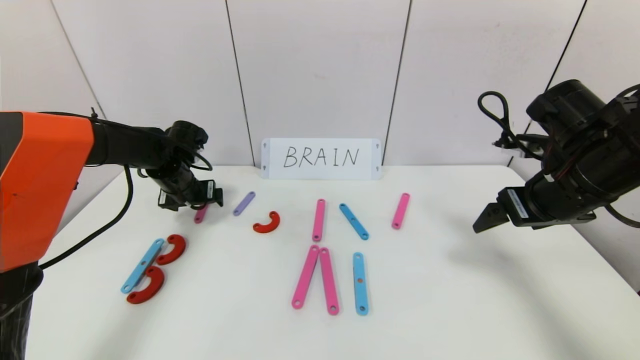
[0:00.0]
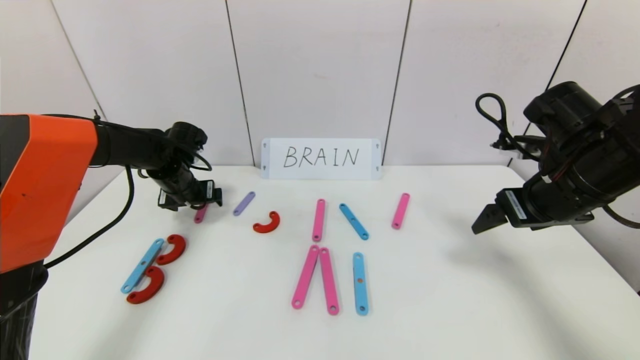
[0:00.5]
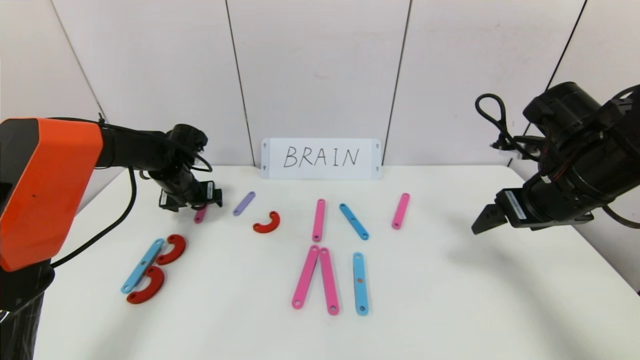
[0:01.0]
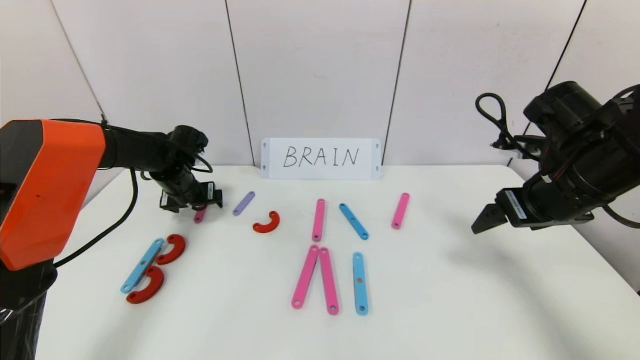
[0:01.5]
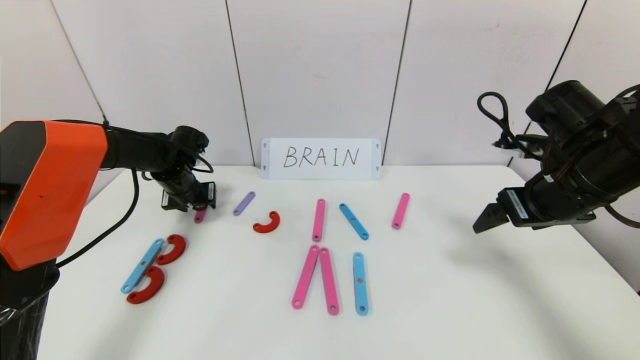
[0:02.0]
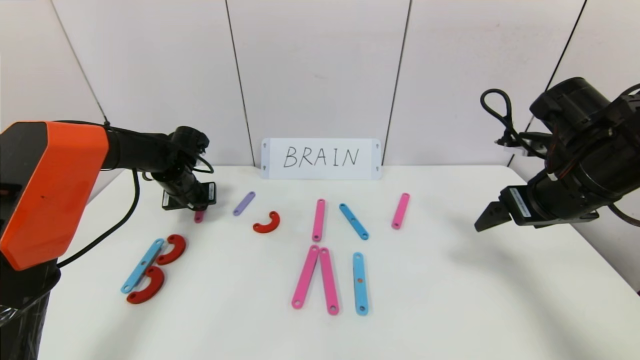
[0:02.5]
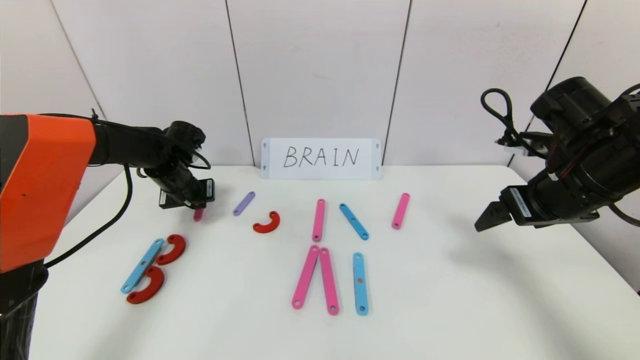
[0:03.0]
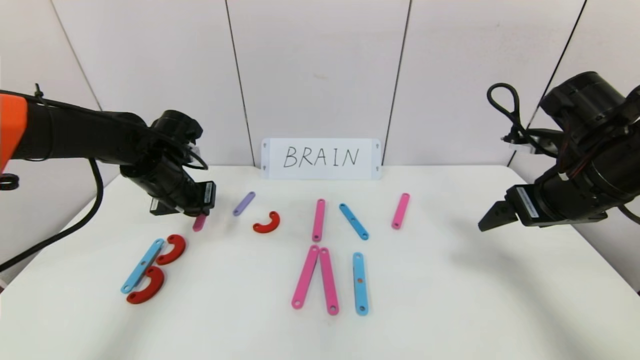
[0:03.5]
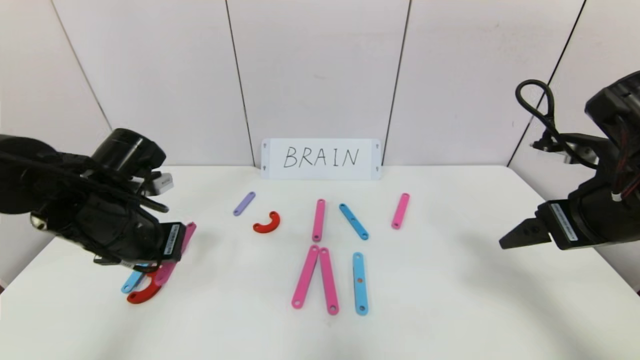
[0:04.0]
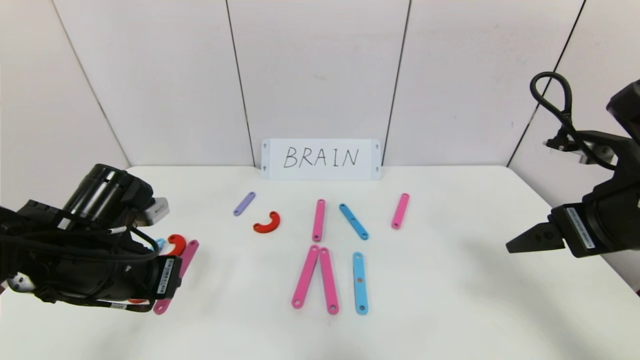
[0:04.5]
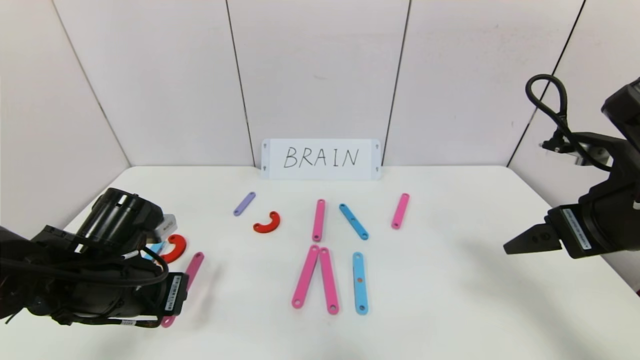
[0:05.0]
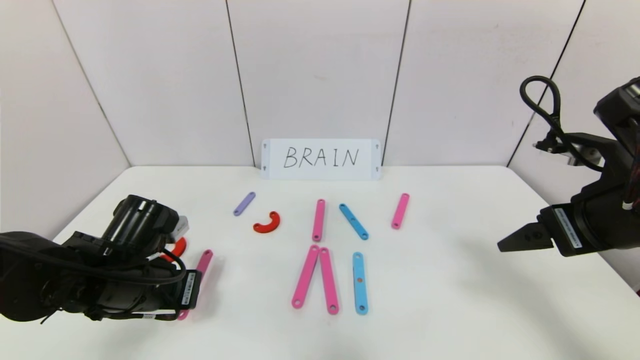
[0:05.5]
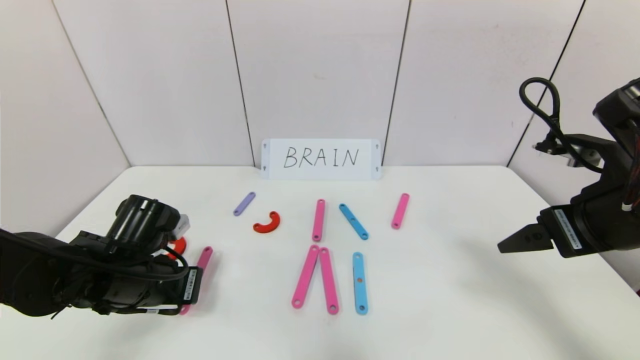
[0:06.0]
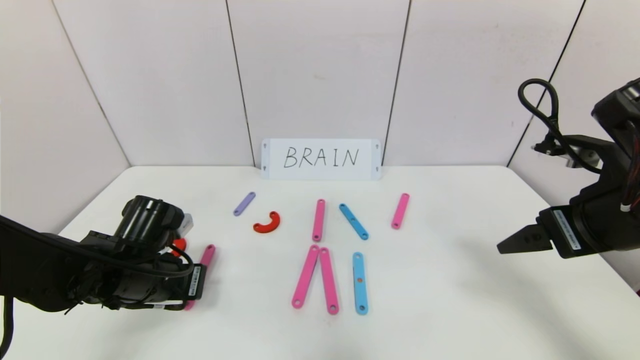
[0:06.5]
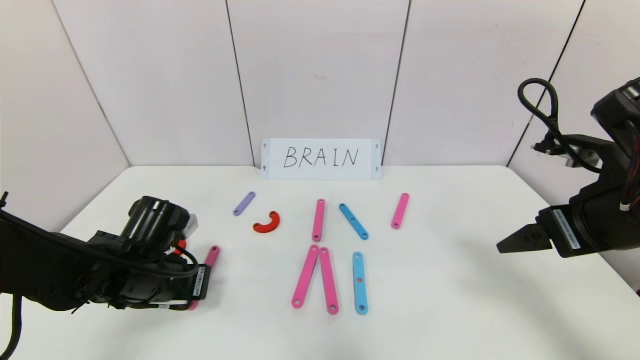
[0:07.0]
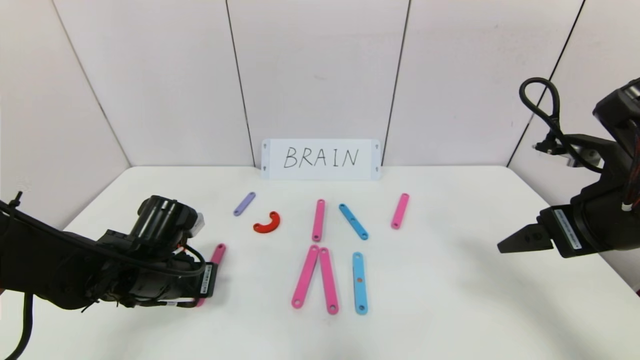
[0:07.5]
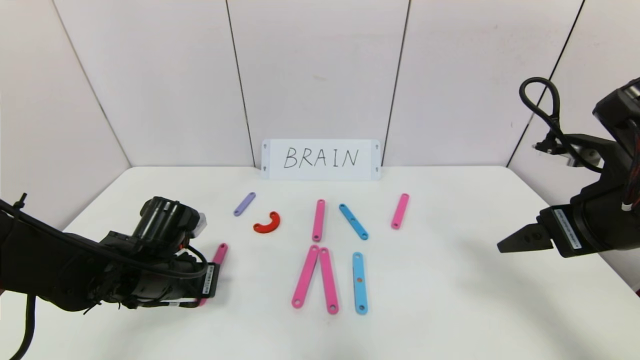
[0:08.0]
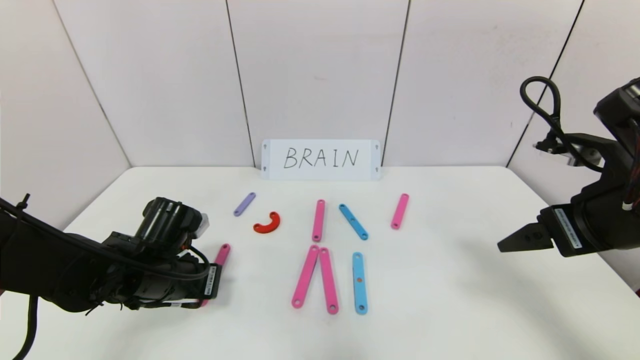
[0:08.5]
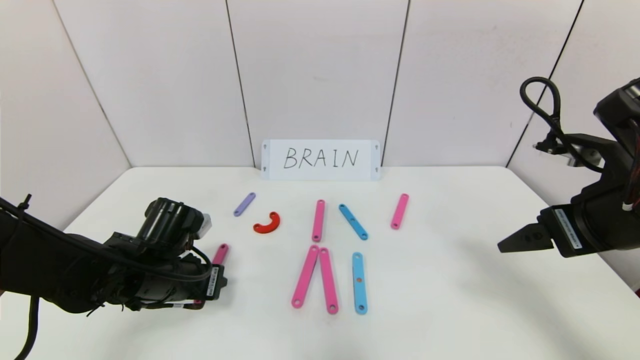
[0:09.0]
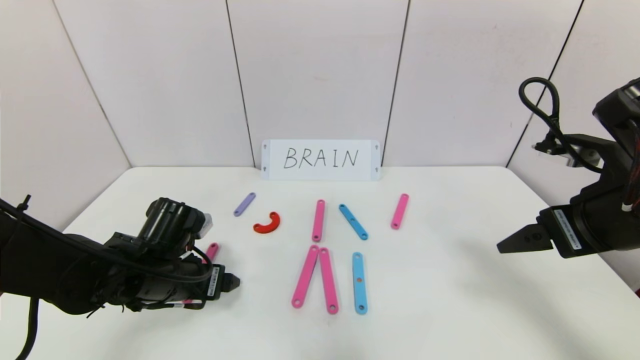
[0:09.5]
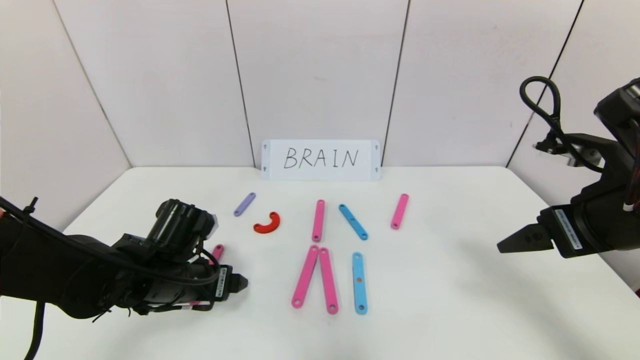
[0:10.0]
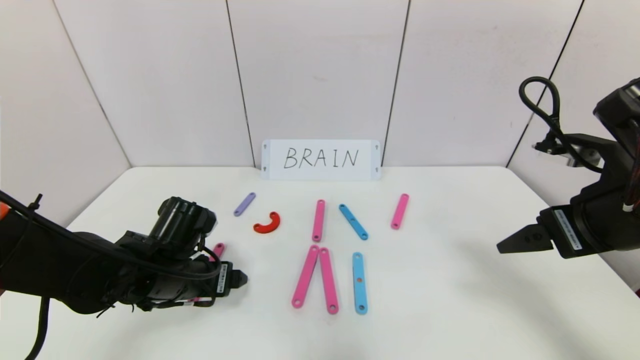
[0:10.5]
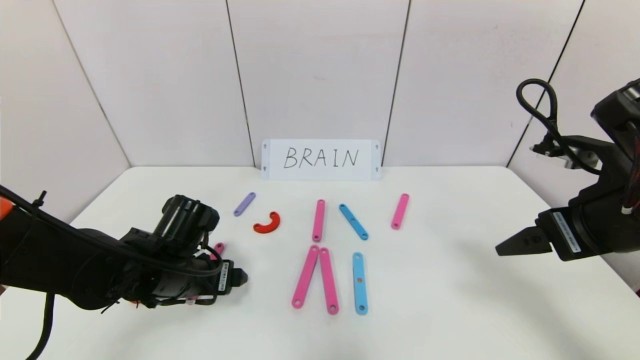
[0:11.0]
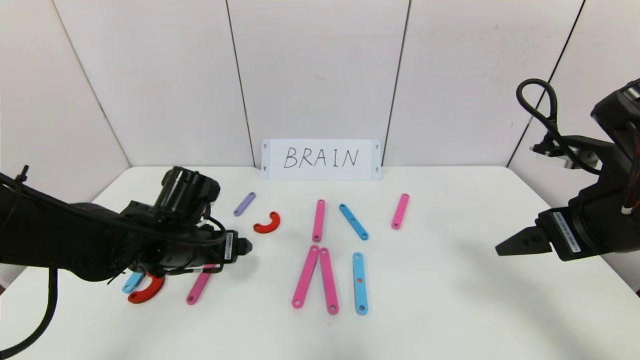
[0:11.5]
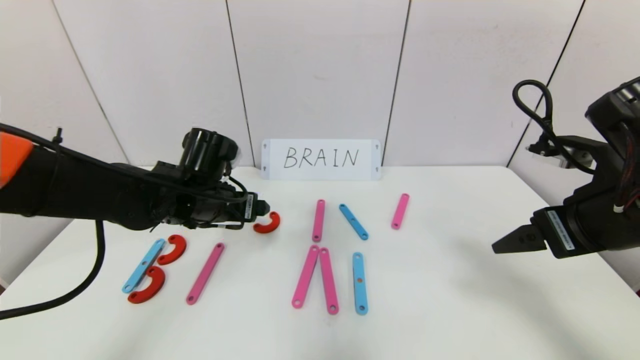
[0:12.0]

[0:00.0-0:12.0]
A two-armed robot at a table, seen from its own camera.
Task of the whole recording: rearrange the word baai as brain.
0:00.0 to 0:02.0: The left gripper closes its fingers.
0:02.0 to 0:04.0: The left gripper shifts roughly 20 cm backward, and closes, while the right gripper moves backward, about 5 cm.
0:04.0 to 0:06.0: The left gripper is displaced downward by some 10 cm.
0:06.0 to 0:08.0: The grippers make only small movements.
0:08.0 to 0:10.0: The left gripper opens.
0:10.0 to 0:12.0: The left gripper goes about 10 cm forward and upward.

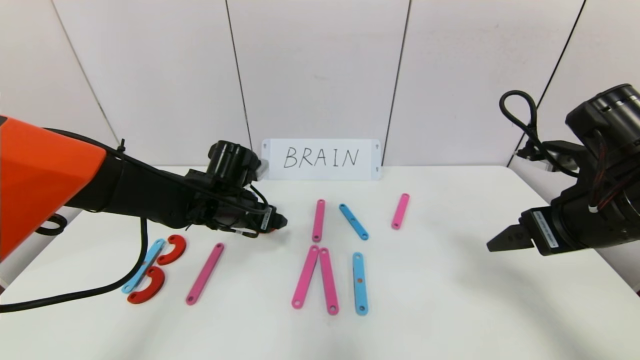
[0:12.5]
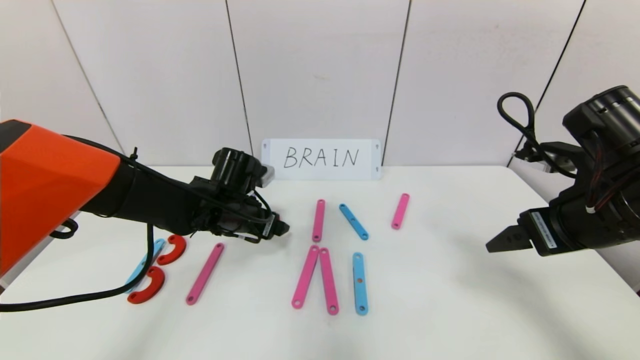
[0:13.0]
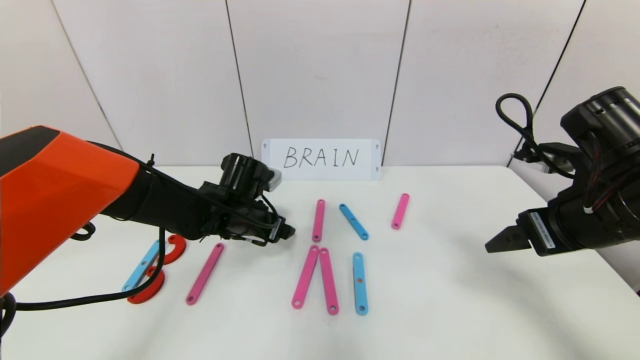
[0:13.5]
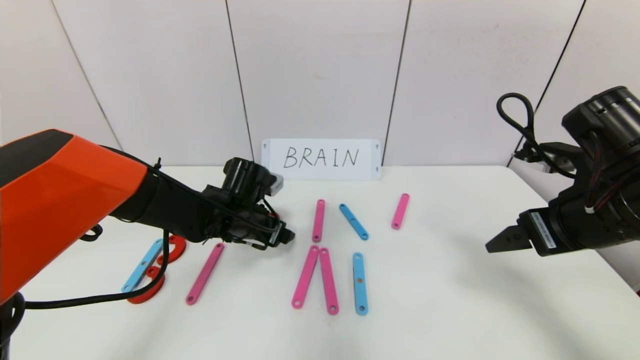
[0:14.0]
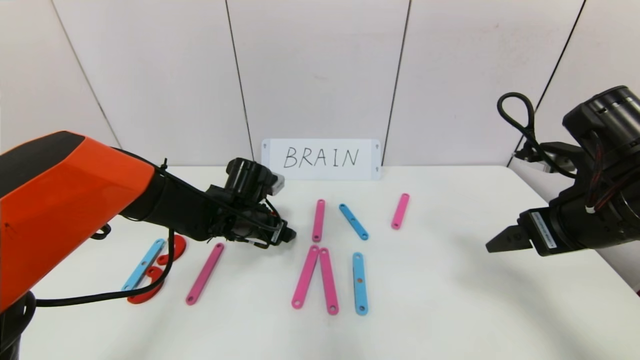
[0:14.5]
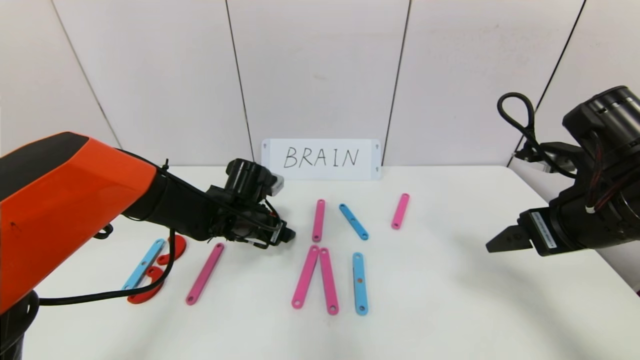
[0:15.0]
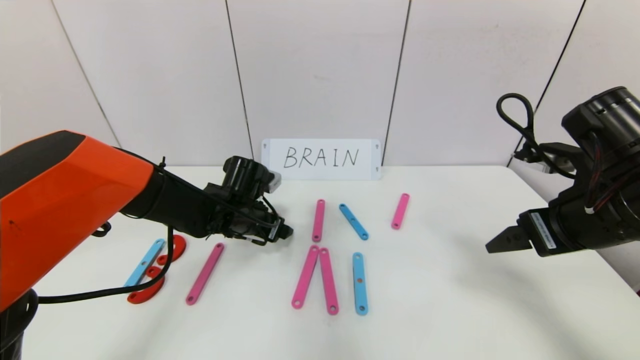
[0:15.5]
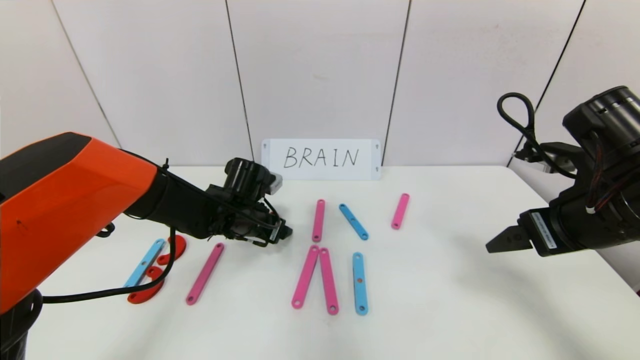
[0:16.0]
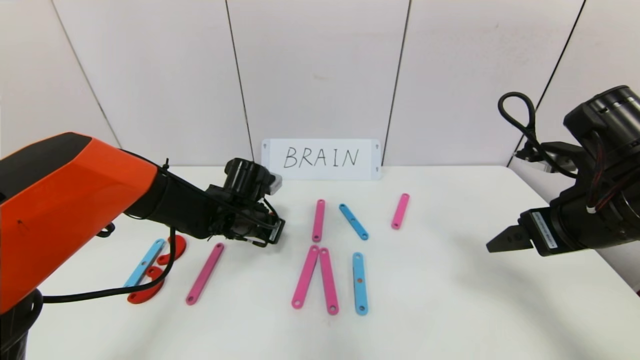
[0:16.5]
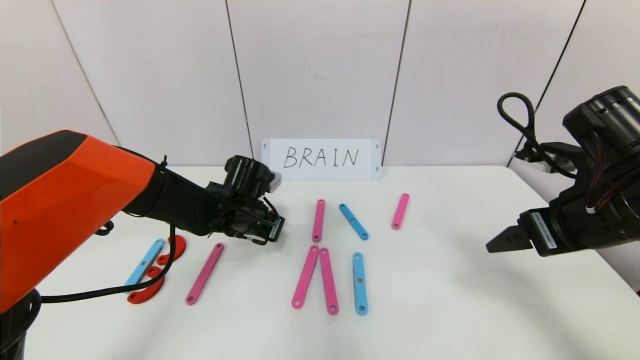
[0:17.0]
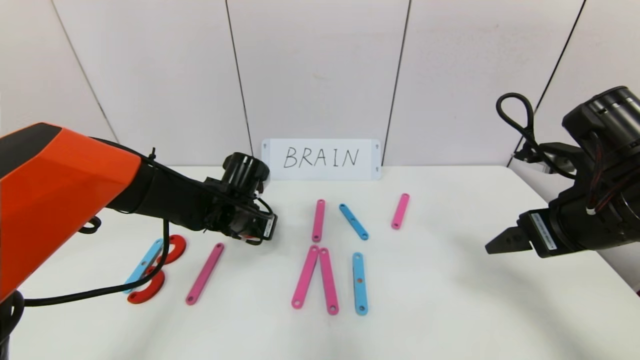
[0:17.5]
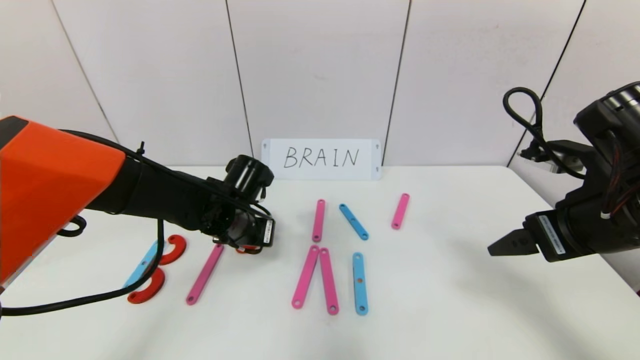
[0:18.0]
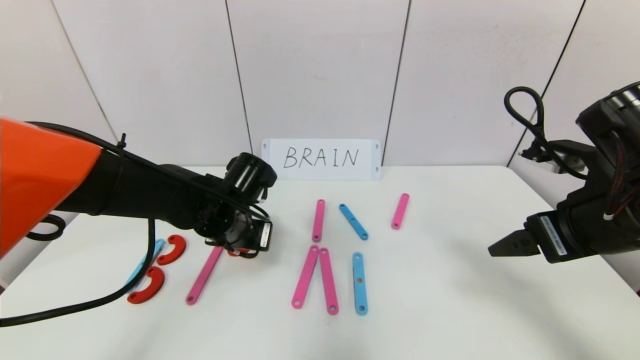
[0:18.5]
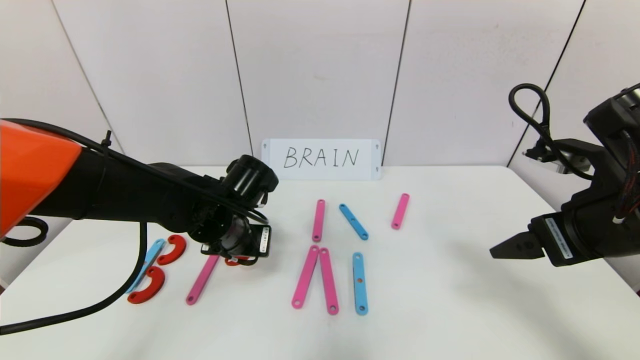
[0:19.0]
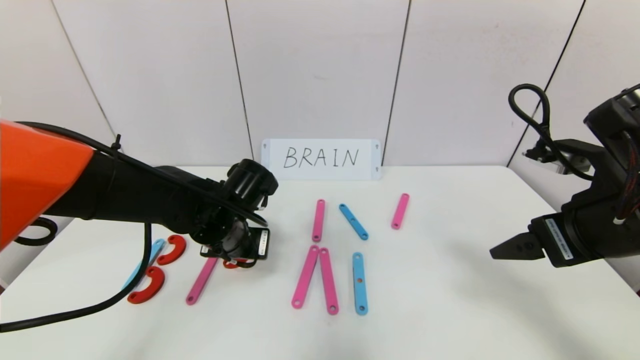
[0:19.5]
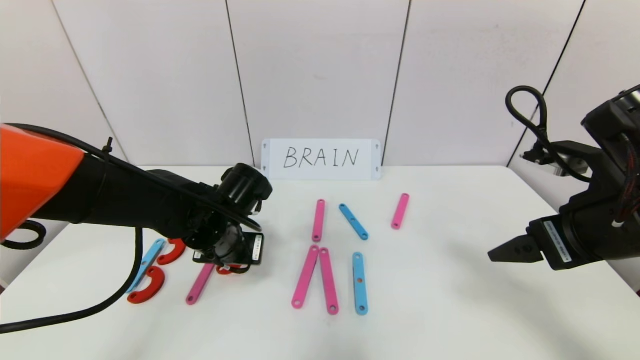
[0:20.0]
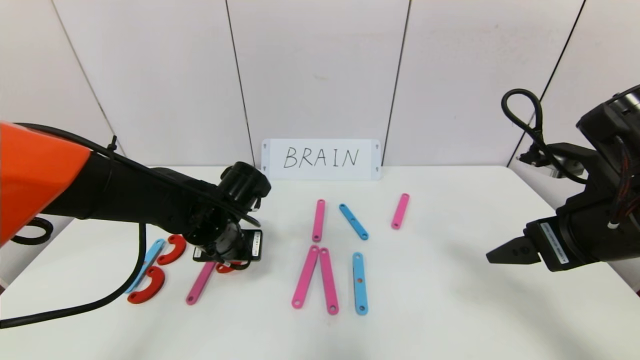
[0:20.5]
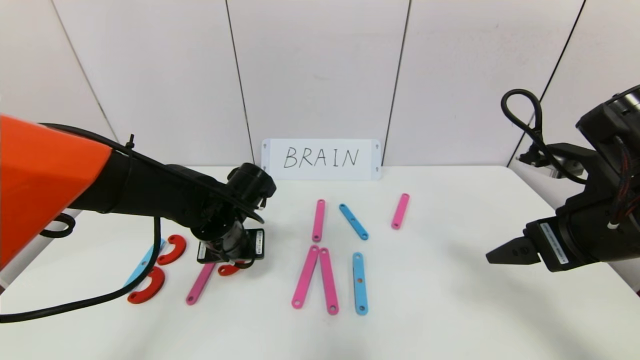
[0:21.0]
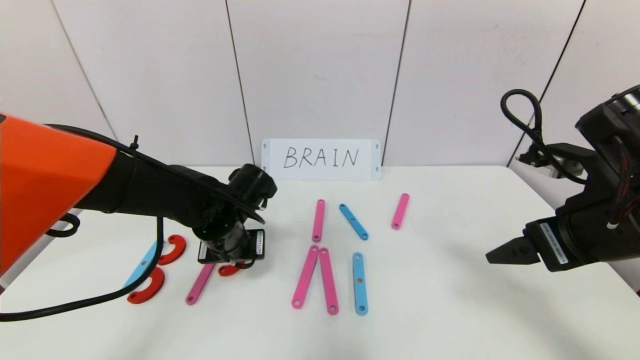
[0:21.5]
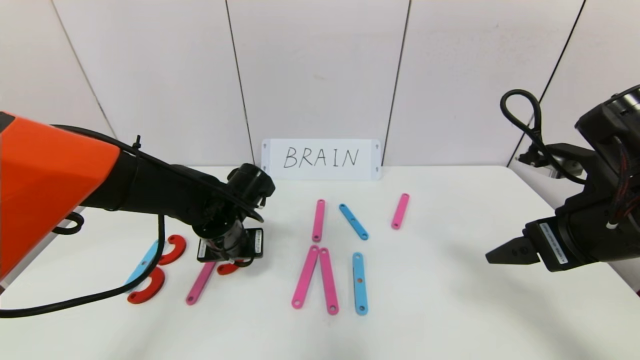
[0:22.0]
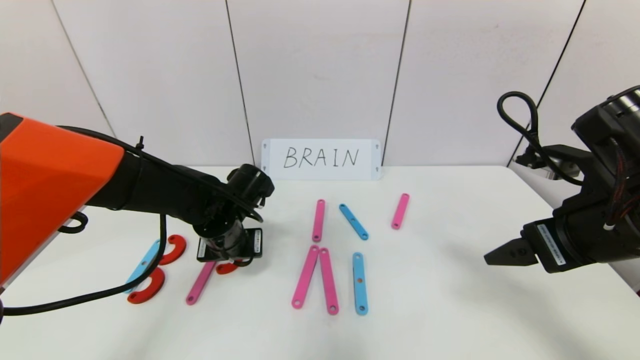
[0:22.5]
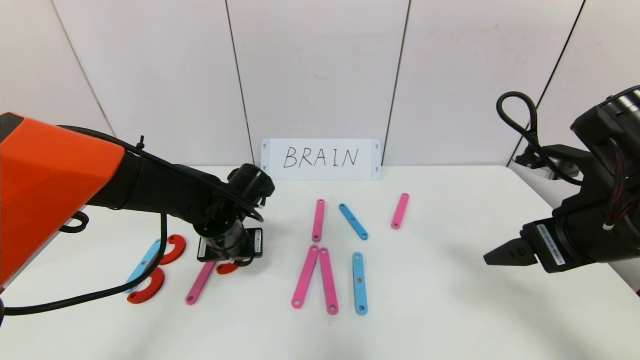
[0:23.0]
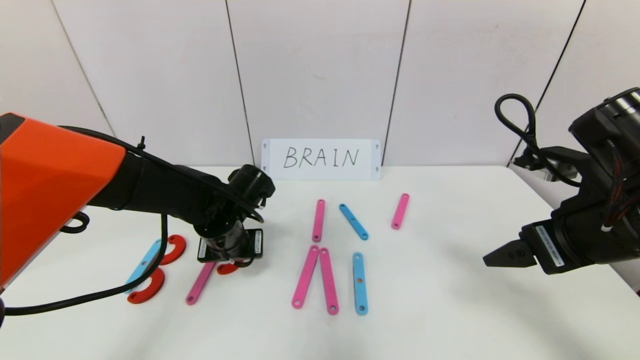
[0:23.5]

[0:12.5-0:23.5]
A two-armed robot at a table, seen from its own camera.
Task of the whole recording: rearrange the word baai as brain.
0:12.5 to 0:14.5: The grippers make only small movements.
0:14.5 to 0:16.0: Both grippers stay put.
0:16.0 to 0:18.0: The left gripper closes.
0:18.0 to 0:21.5: There are only small adjustments of the grippers.
0:21.5 to 0:23.5: The left gripper opens up.
